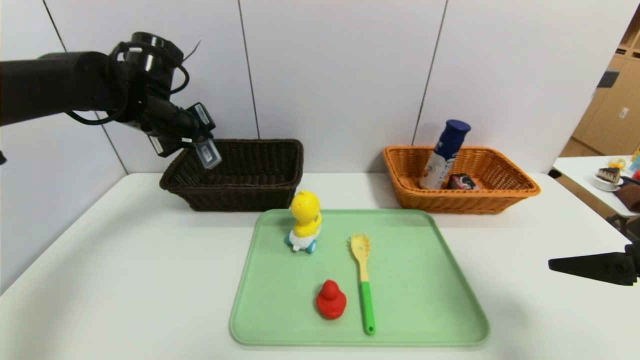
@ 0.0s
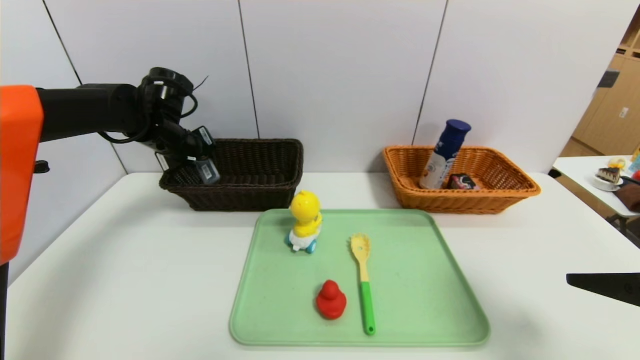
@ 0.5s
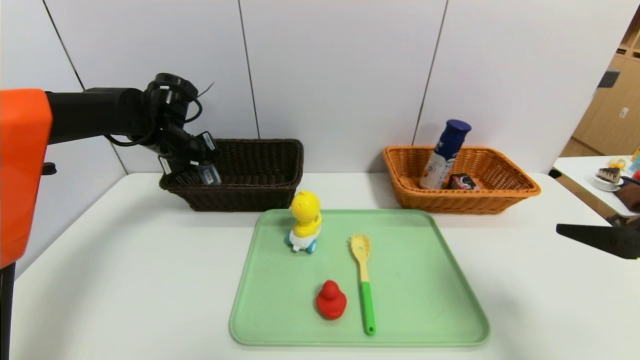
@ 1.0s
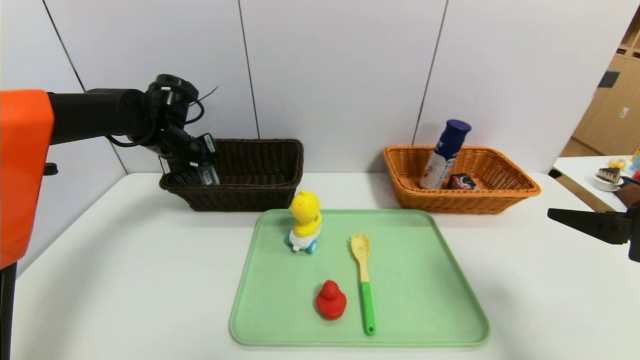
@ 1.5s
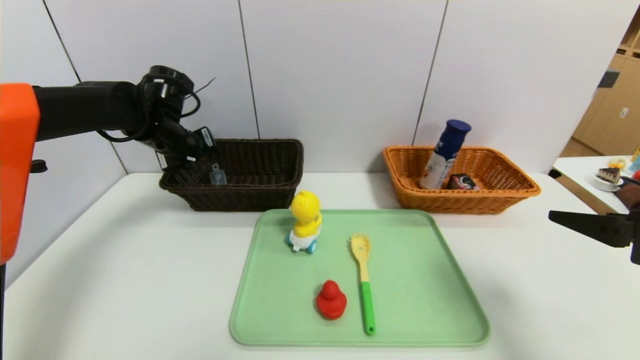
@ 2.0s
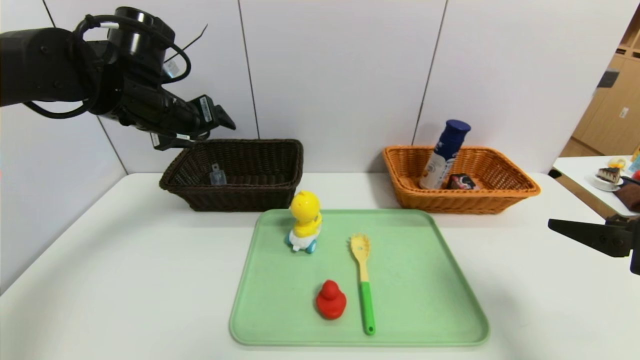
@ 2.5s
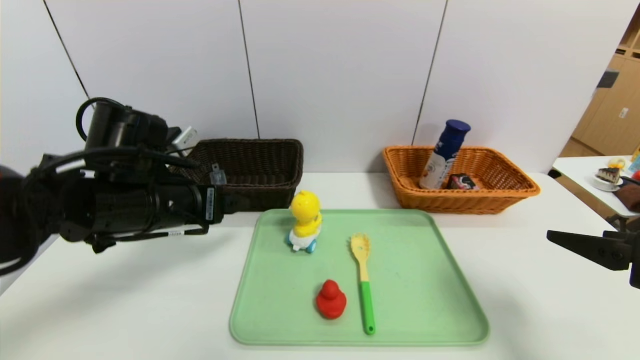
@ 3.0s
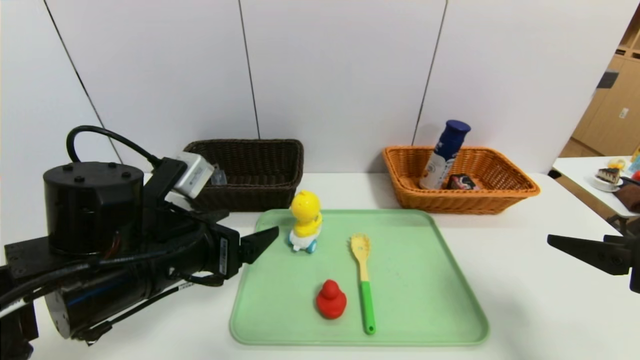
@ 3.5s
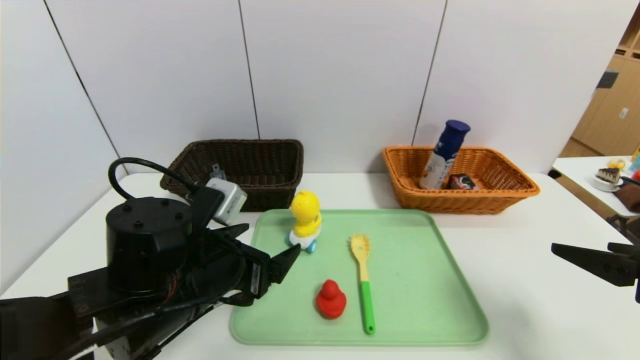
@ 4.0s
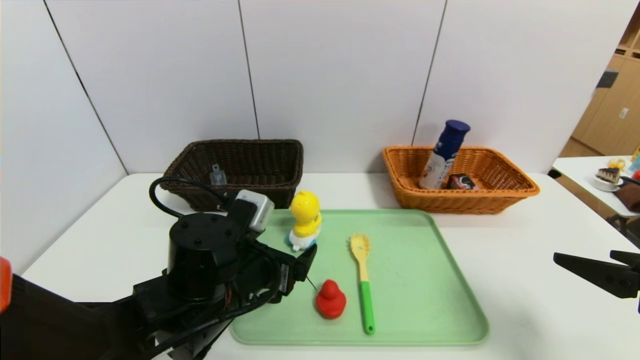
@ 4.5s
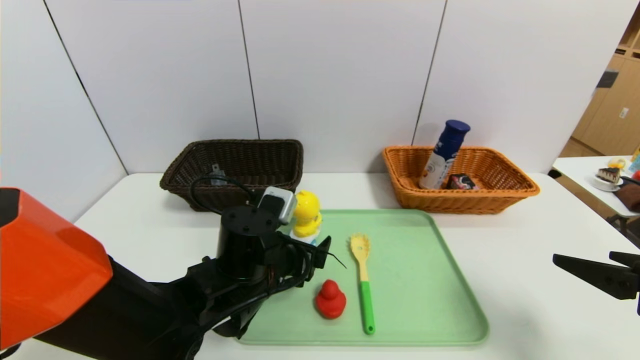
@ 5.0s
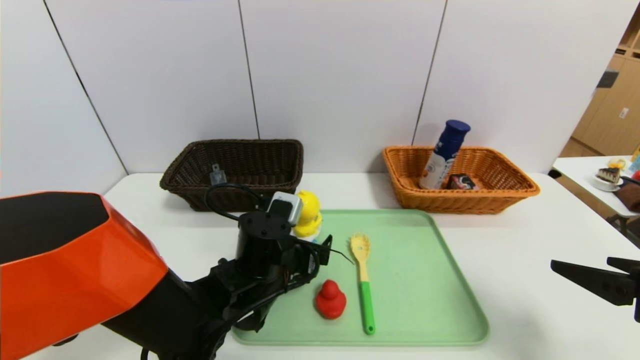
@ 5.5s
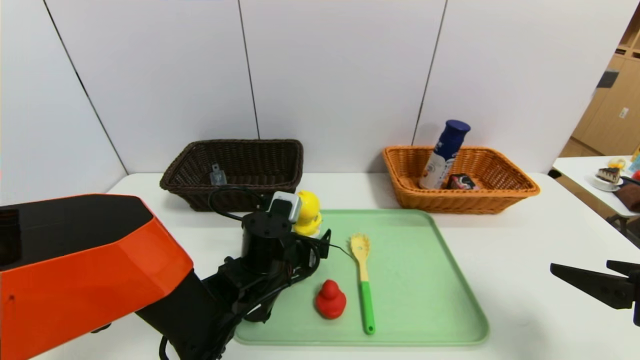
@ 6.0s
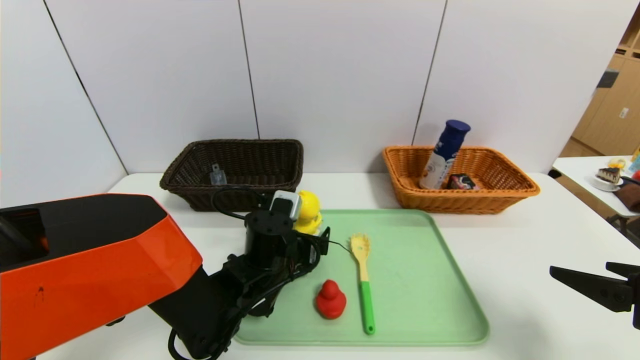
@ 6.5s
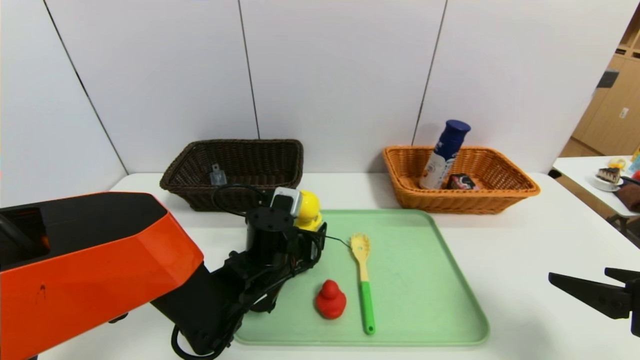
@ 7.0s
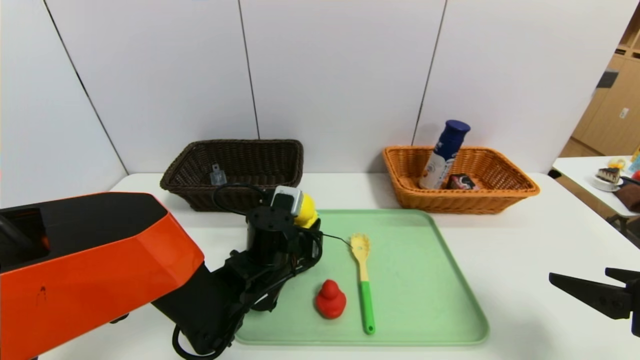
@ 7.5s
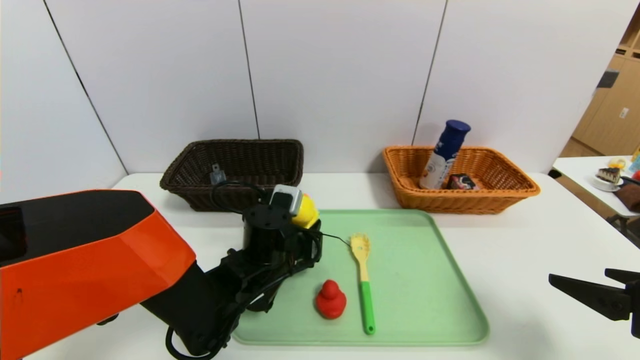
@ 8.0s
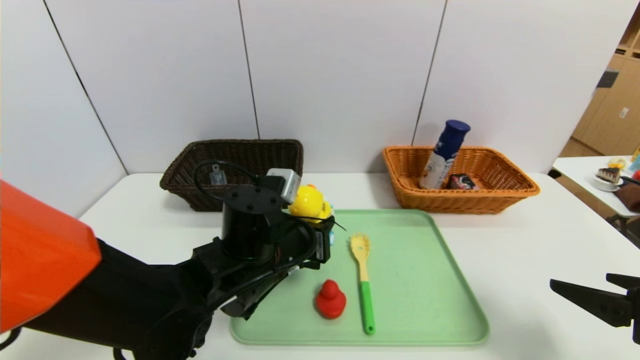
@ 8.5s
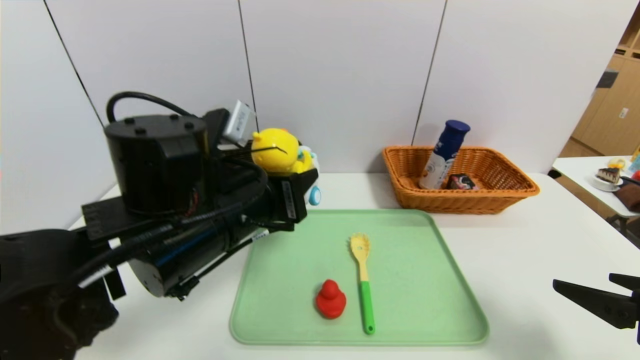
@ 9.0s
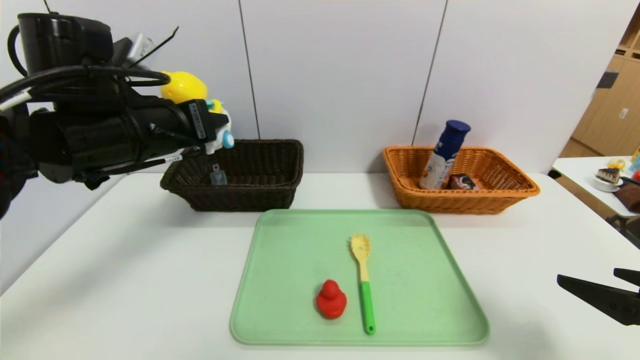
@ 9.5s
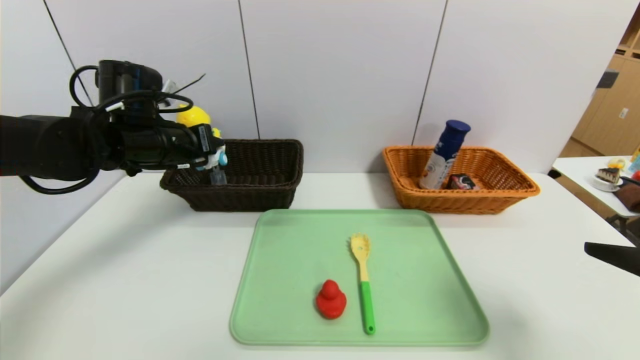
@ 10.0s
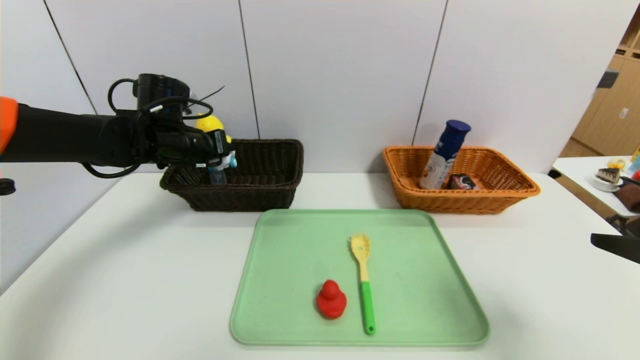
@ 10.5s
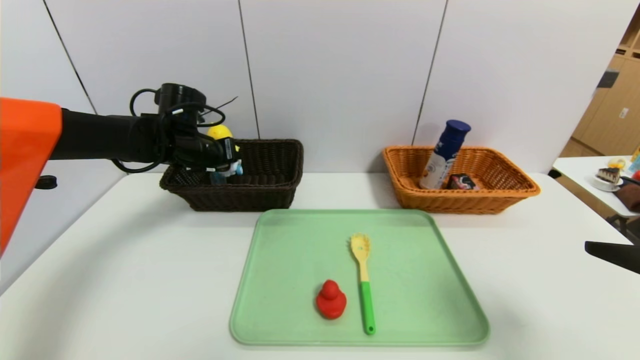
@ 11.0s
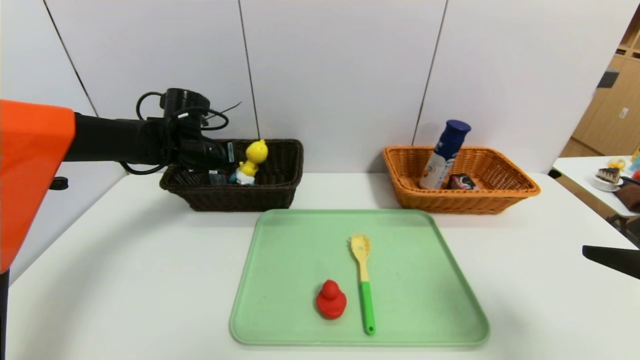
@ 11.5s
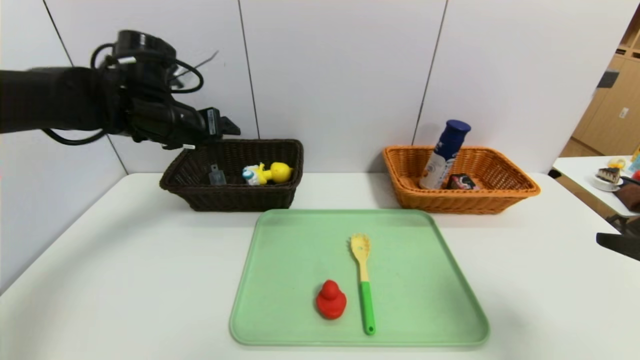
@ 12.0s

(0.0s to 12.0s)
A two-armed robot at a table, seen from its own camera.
Task of the whole recording: place the food in the right basket with the right gripper, and place the non food items in the left basket with the left gripper.
Step, 0.0s - 2.5s: Grasp the compass and put it in the left basket.
0.0s - 2.0s: The left gripper opens up.
2.0s - 4.0s: The left gripper is displaced backward and to the right by about 25 cm.
4.0s - 6.0s: The left gripper shifts some 15 cm forward, downward and to the right.
6.0s - 8.0s: The left gripper closes.
8.0s - 10.0s: The left gripper is displaced to the left, upward and forward by some 25 cm, while the right gripper shifts some 5 cm upward.
10.0s - 12.0s: The left gripper opens its fingers.

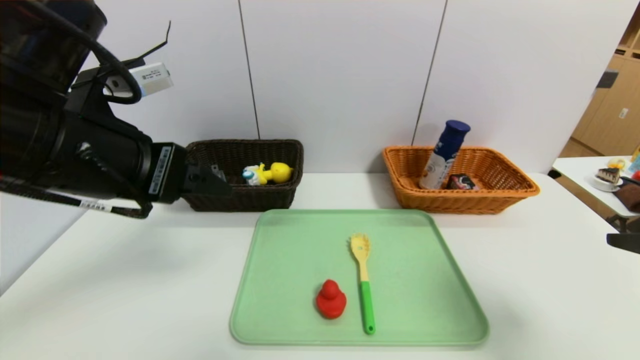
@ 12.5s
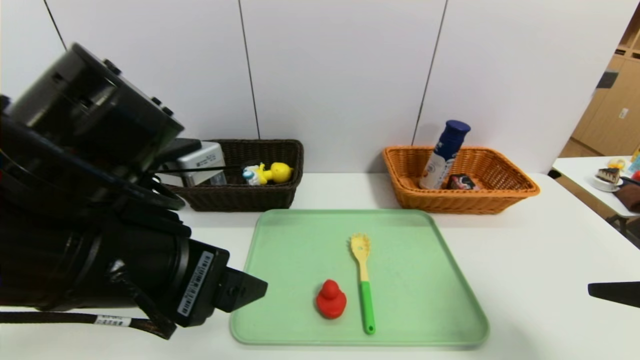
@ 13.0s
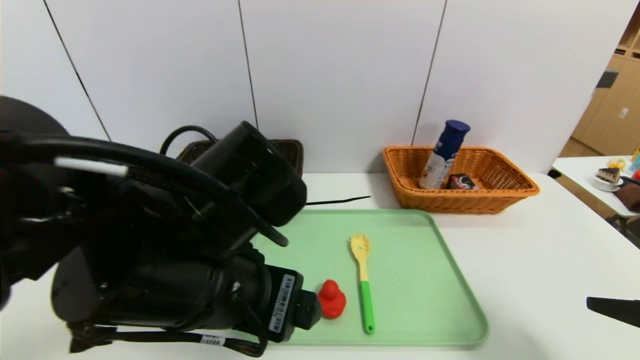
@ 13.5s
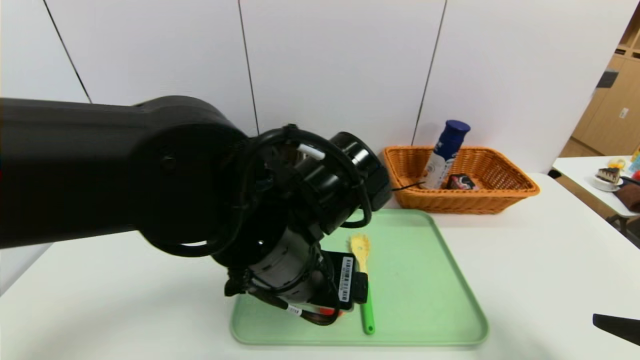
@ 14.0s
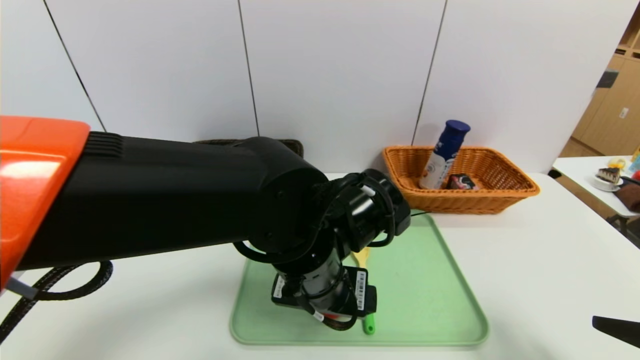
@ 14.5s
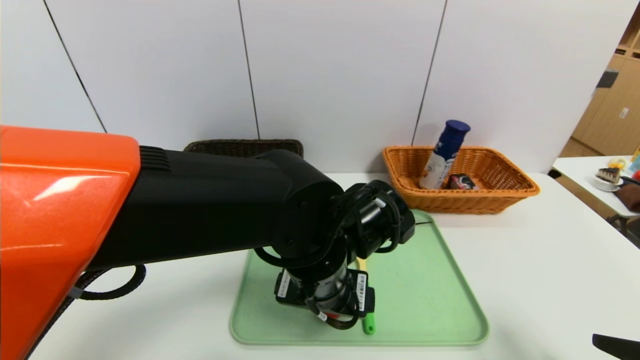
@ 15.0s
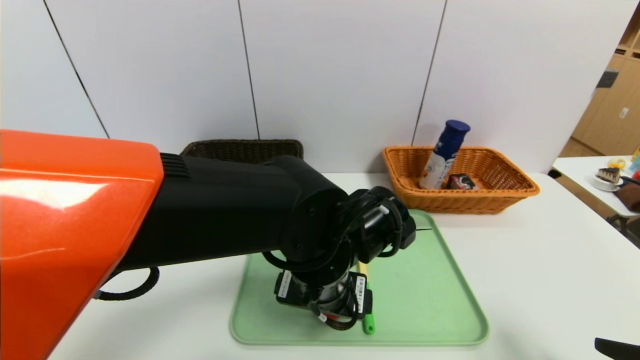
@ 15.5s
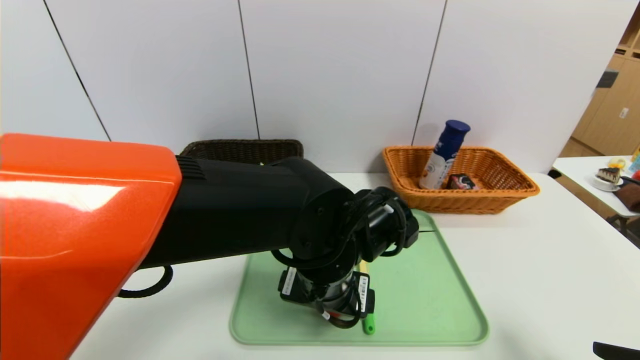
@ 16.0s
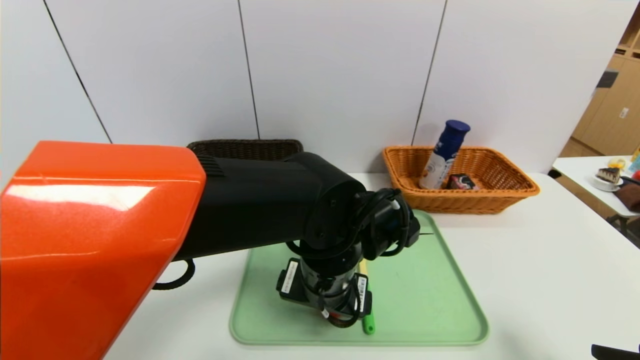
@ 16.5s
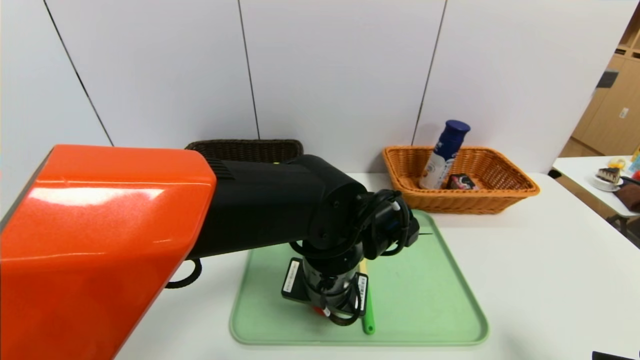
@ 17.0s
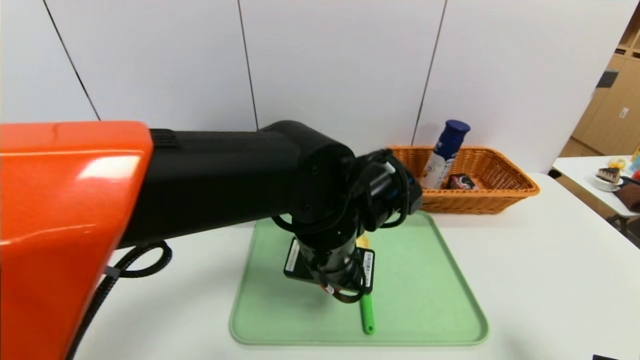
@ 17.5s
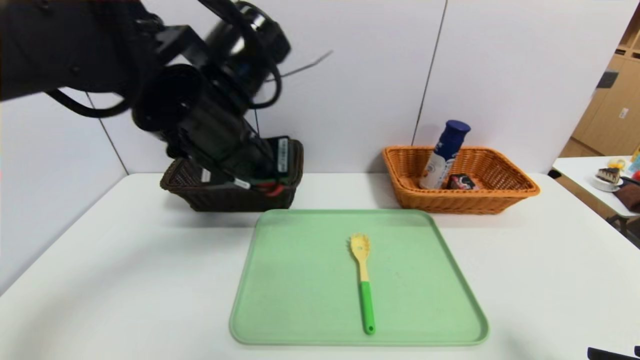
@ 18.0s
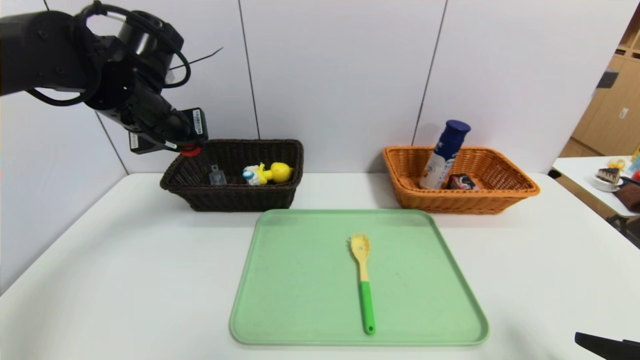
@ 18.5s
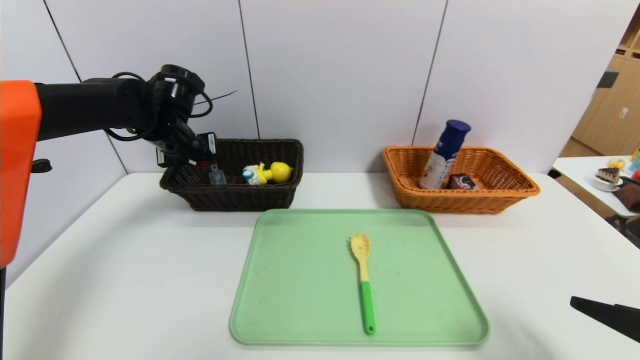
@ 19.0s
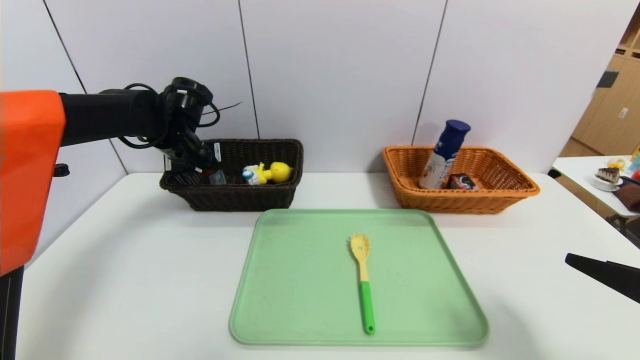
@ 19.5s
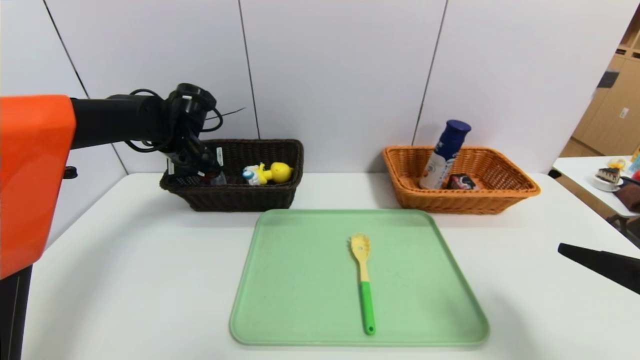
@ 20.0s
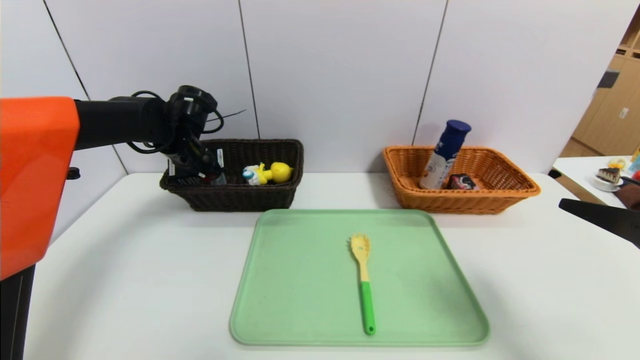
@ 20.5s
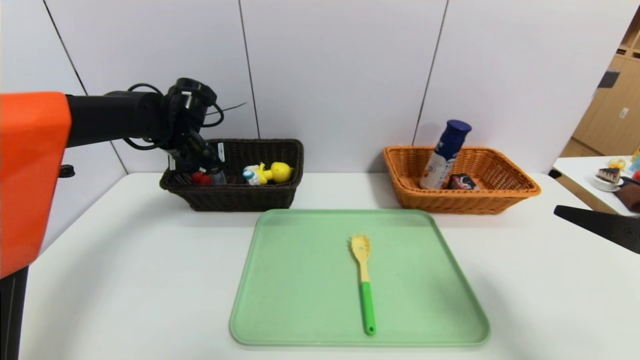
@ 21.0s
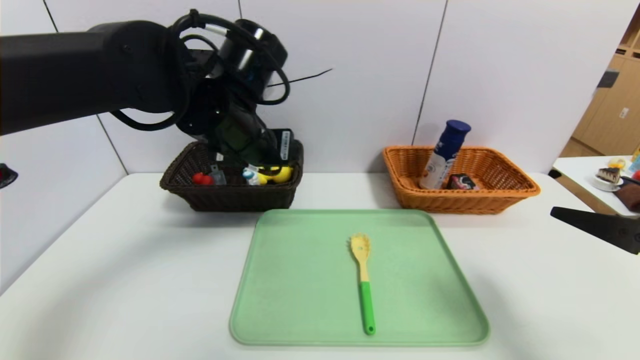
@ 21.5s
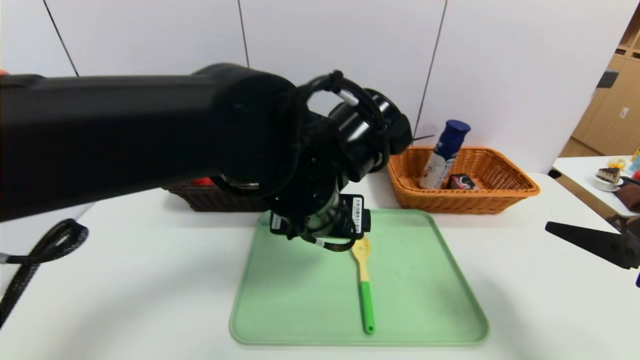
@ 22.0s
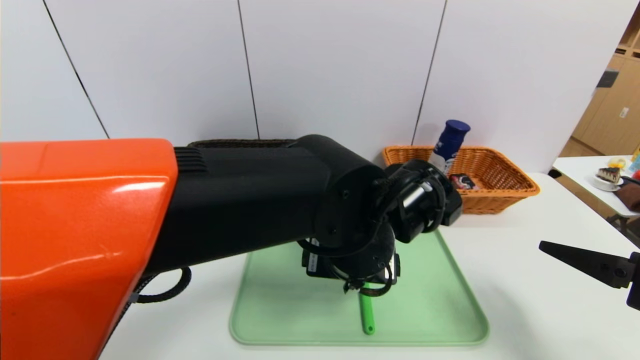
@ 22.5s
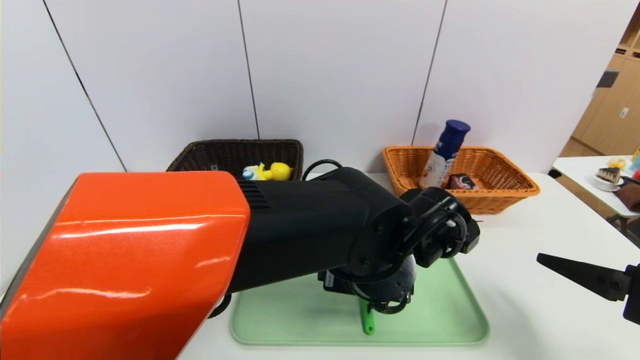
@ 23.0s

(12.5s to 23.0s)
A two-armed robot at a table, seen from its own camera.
Task of the whole recording: place the food in the right basket with the right gripper, and place the non food items in the left basket with the left gripper.
Step, 13.0s - 21.0s: Grasp the red duck and put it in the left basket.
12.5s - 14.5s: The right gripper heads downward, covering about 5 cm; the left gripper goes some 25 cm to the right and downward.
16.5s - 19.0s: The left gripper goes about 30 cm to the left and forward, and closes.
19.0s - 21.0s: The left gripper opens up. The right gripper changes place by roughly 5 cm.
21.0s - 23.0s: The left gripper heads to the right and backward, covering some 35 cm.
